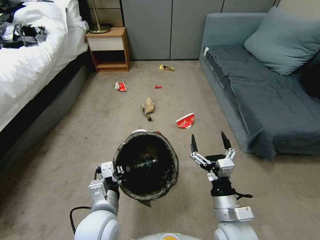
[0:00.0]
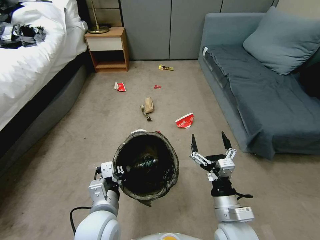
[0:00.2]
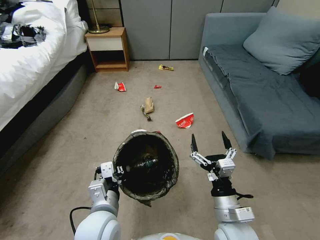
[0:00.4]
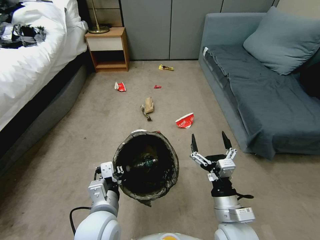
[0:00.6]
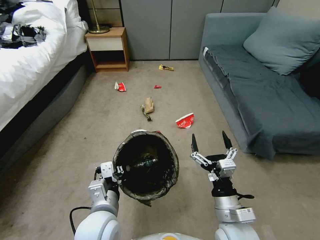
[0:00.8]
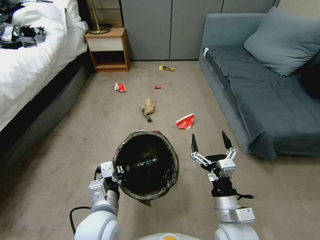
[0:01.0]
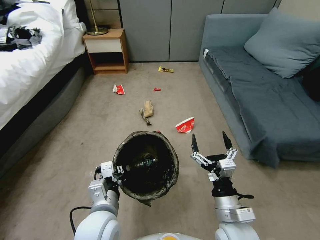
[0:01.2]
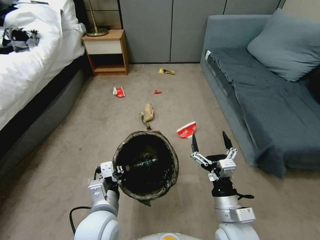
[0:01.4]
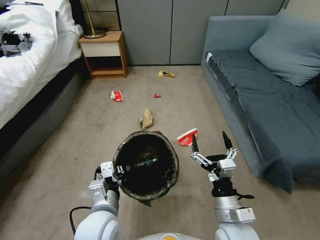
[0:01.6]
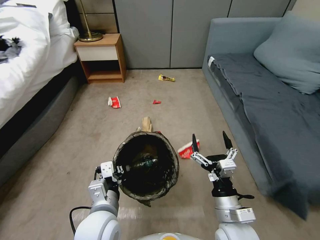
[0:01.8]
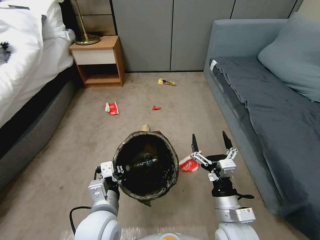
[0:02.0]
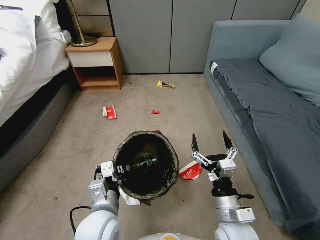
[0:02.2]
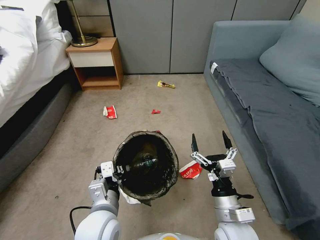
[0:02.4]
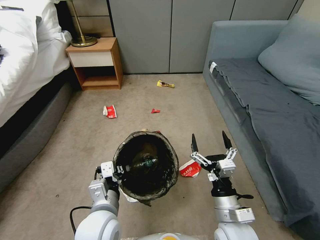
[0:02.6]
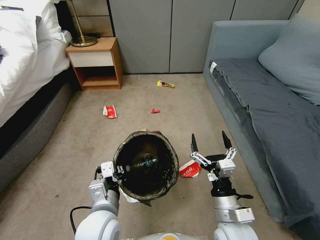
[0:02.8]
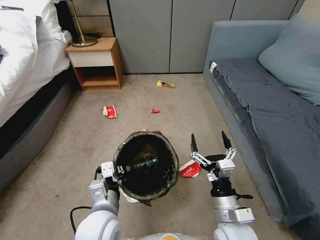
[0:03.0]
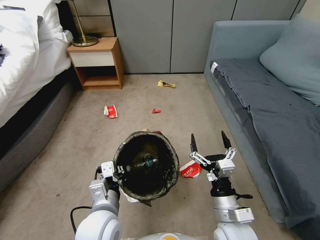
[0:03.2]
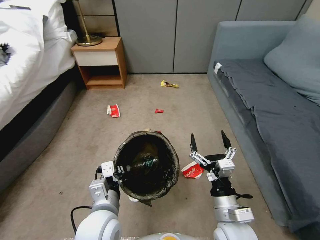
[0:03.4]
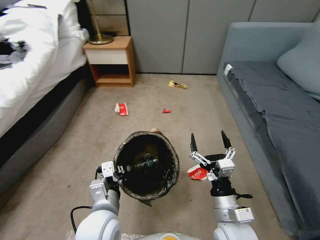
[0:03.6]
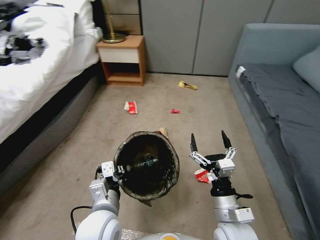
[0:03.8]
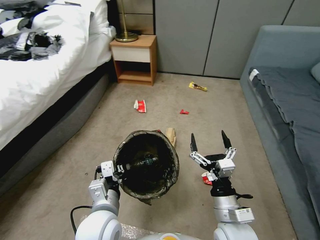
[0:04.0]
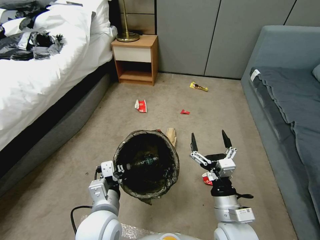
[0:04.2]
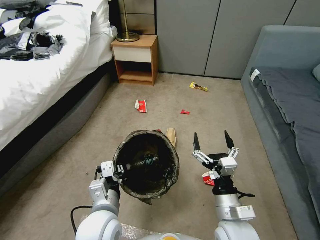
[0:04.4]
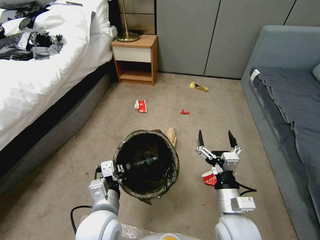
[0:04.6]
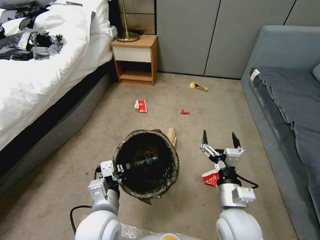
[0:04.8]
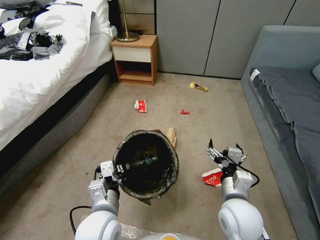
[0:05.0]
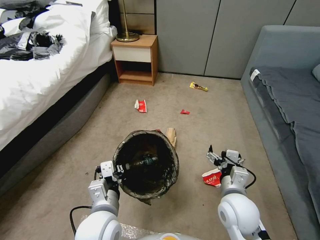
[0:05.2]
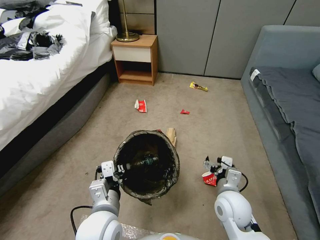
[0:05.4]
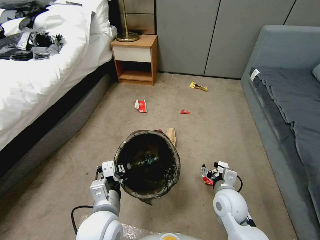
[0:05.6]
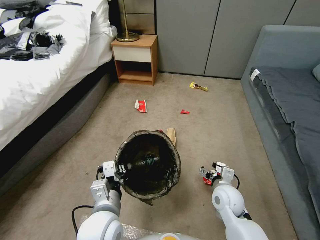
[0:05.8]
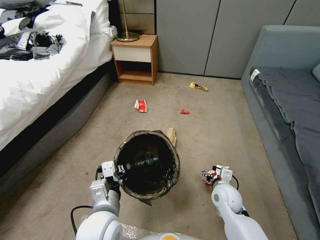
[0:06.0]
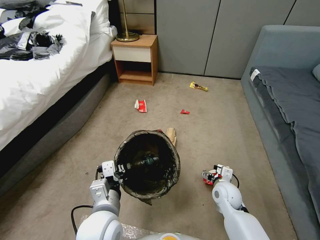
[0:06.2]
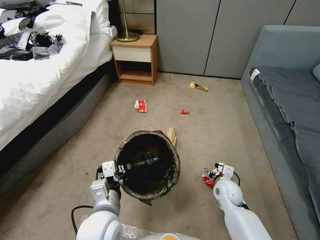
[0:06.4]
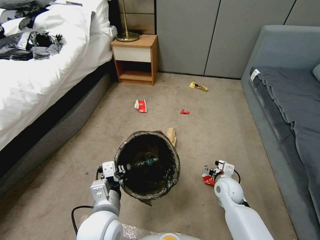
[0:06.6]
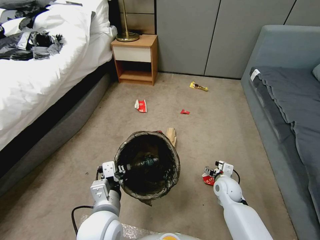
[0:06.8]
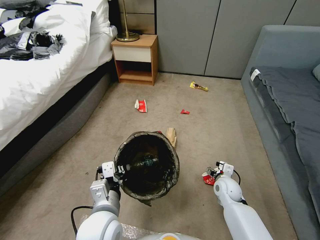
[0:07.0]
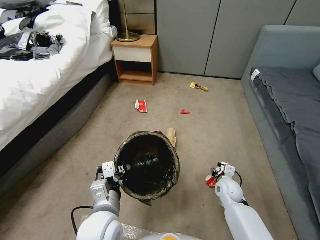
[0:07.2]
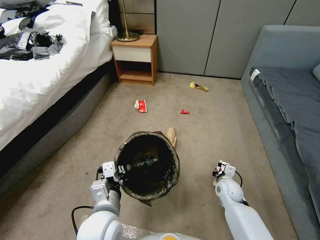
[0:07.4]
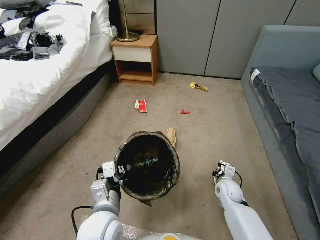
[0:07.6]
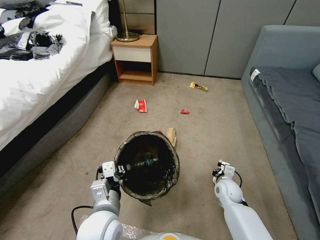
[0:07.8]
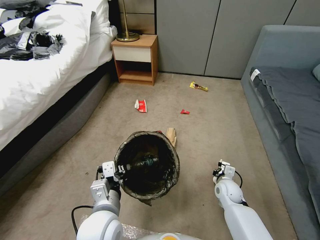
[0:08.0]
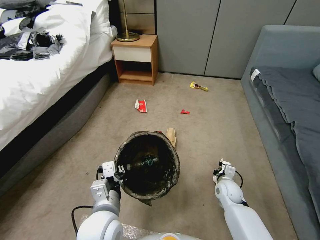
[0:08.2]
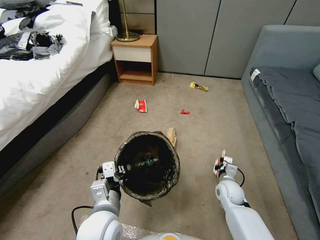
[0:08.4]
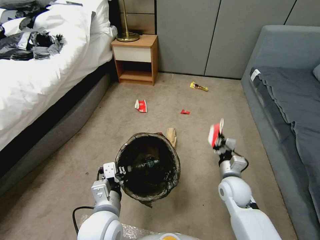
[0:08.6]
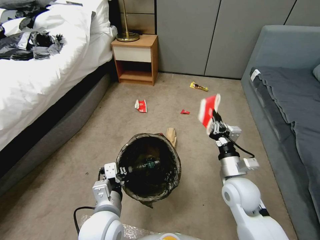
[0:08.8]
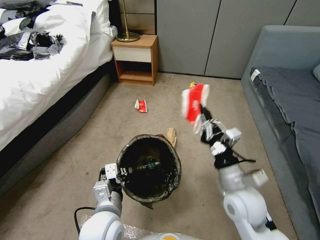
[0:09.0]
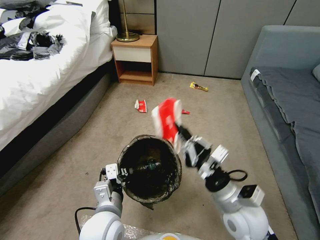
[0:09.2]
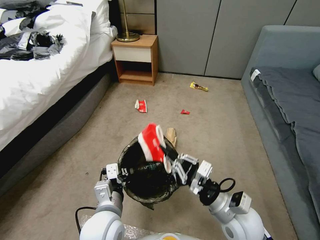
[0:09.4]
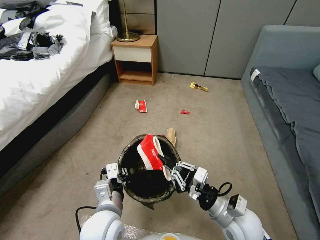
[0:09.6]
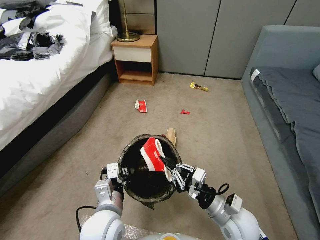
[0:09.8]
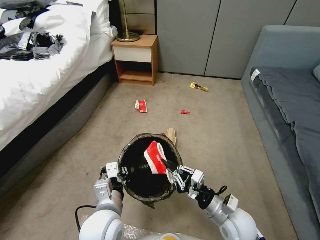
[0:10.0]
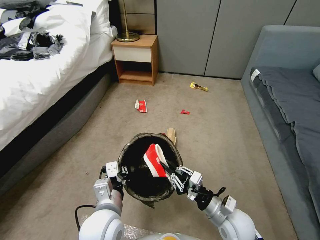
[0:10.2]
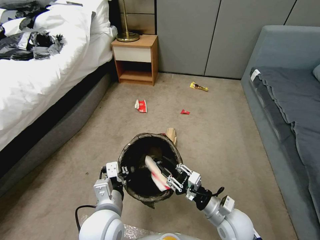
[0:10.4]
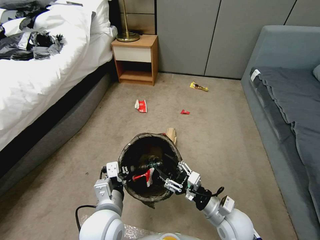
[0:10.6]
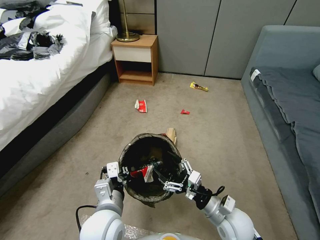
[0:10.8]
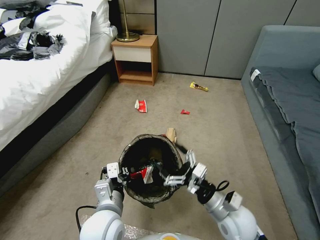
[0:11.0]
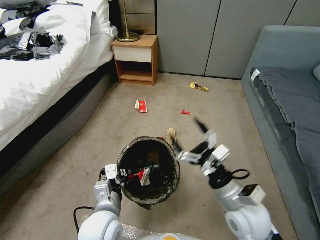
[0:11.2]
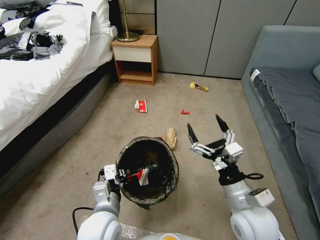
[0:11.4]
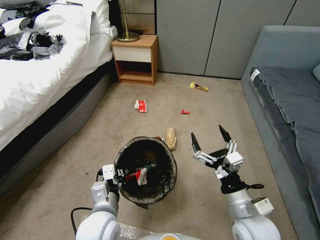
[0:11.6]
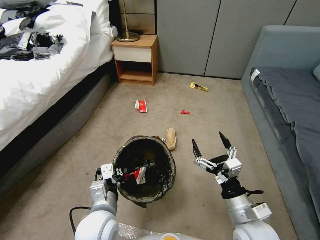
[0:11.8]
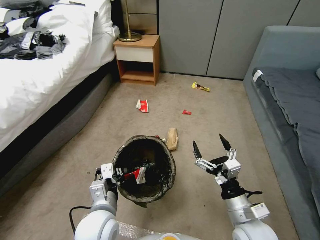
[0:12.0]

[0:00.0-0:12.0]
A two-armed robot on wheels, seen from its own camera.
Task of the whole recording: Pick up the trash bin, then pick up the garbage from the floor and place it into the trash bin.
0:04.4 to 0:06.0: The right gripper shifts approximately 15 cm forward and downward.
0:06.0 to 0:07.6: The right gripper is displaced downward by about 5 cm, and closes up.
0:07.6 to 0:09.0: The right gripper shifts about 25 cm upward and backward.
0:09.0 to 0:10.4: The right gripper goes about 10 cm downward, and opens.
0:10.4 to 0:12.0: The right gripper is displaced upward by roughly 5 cm, and opens.

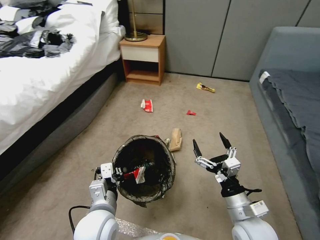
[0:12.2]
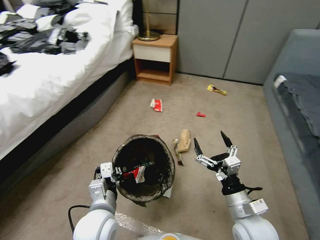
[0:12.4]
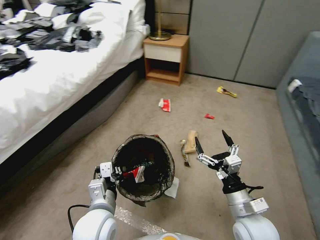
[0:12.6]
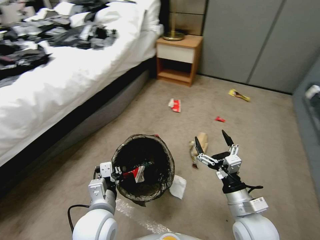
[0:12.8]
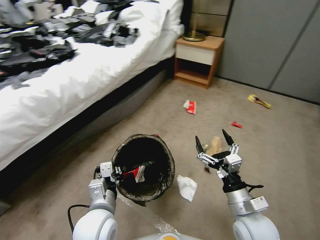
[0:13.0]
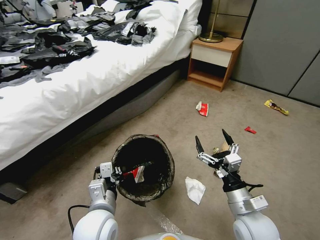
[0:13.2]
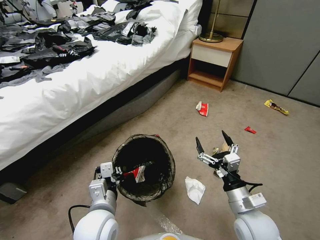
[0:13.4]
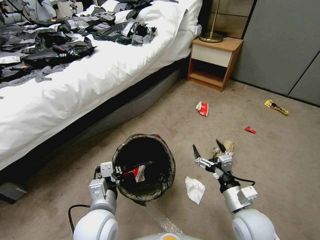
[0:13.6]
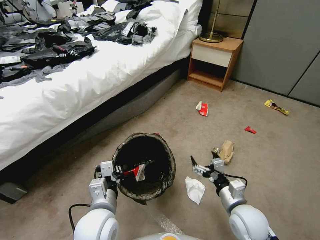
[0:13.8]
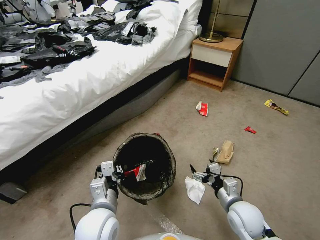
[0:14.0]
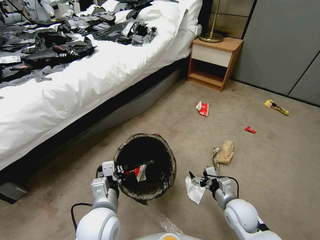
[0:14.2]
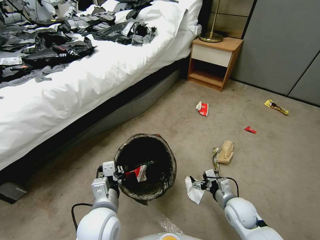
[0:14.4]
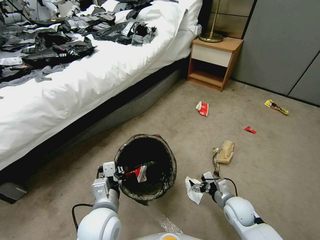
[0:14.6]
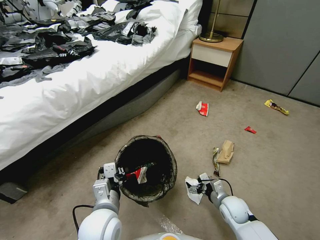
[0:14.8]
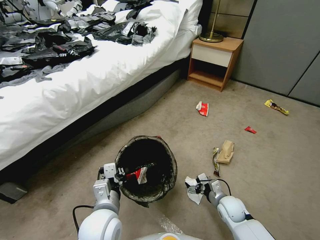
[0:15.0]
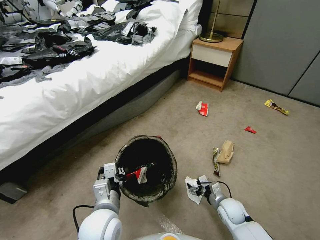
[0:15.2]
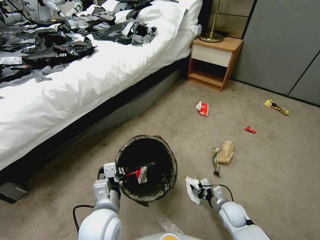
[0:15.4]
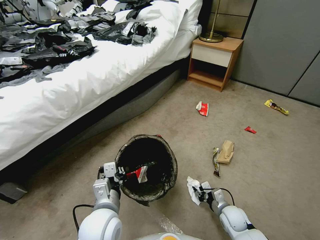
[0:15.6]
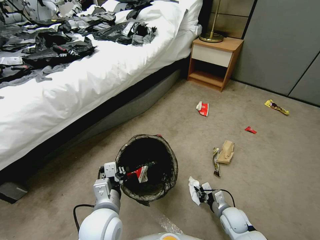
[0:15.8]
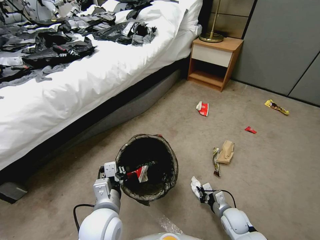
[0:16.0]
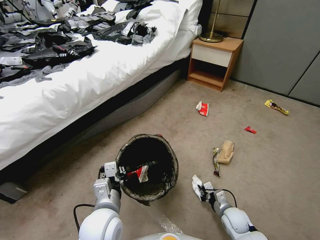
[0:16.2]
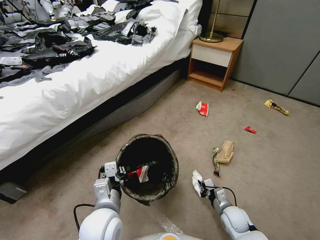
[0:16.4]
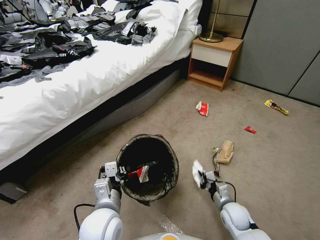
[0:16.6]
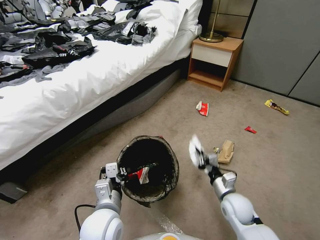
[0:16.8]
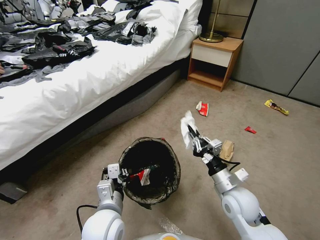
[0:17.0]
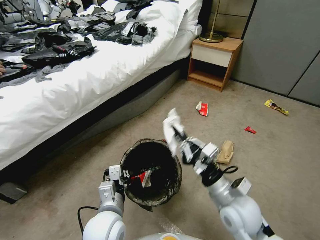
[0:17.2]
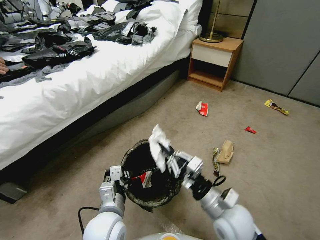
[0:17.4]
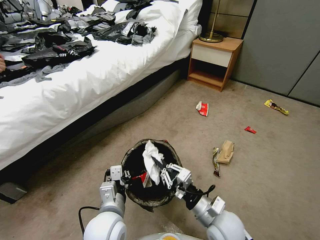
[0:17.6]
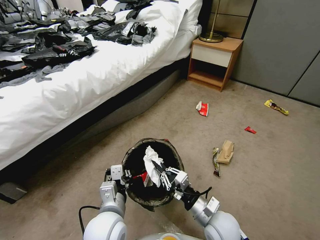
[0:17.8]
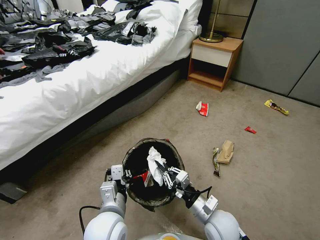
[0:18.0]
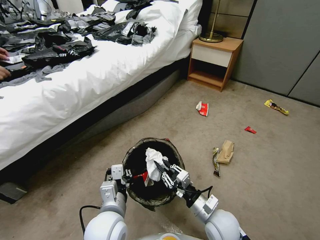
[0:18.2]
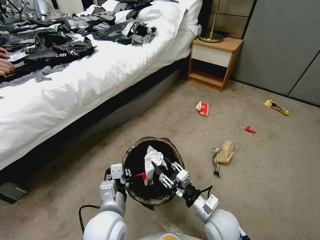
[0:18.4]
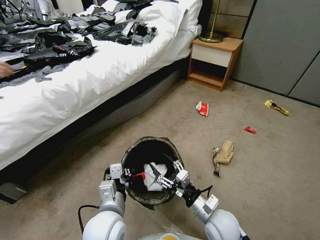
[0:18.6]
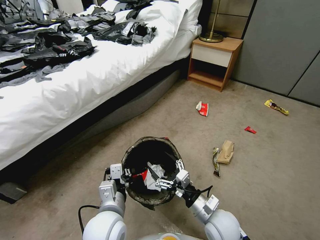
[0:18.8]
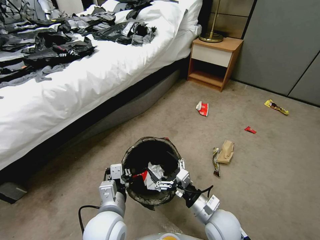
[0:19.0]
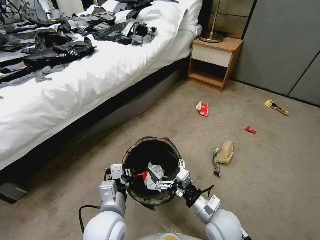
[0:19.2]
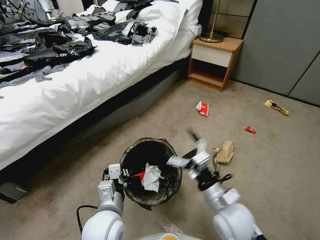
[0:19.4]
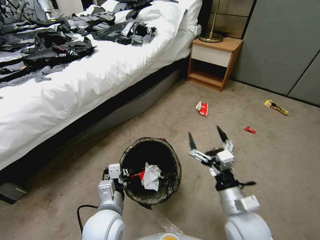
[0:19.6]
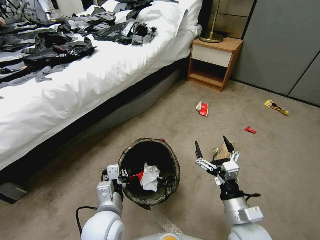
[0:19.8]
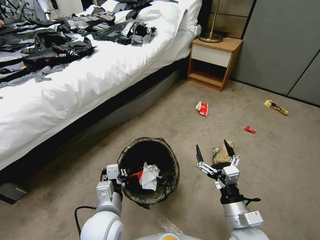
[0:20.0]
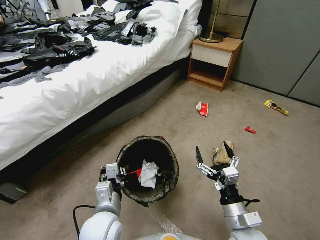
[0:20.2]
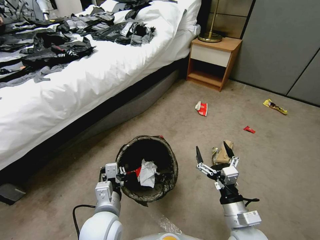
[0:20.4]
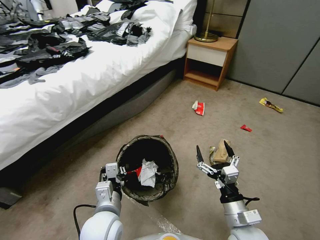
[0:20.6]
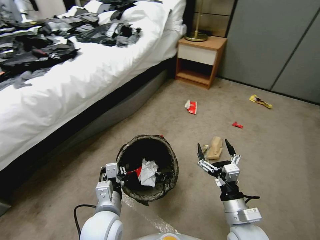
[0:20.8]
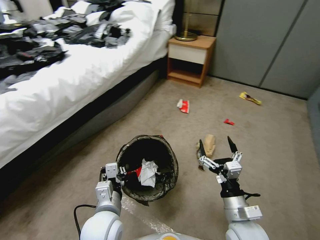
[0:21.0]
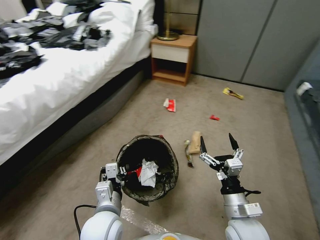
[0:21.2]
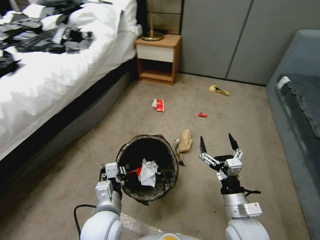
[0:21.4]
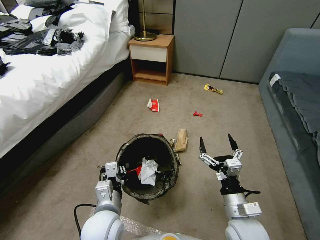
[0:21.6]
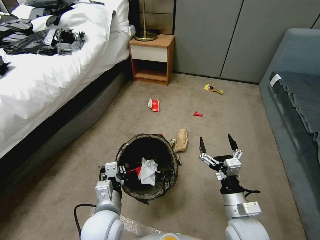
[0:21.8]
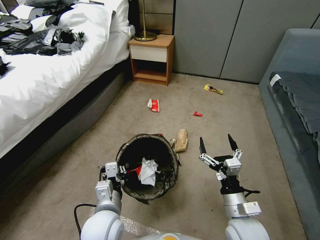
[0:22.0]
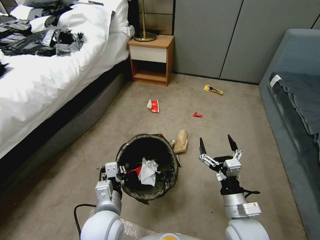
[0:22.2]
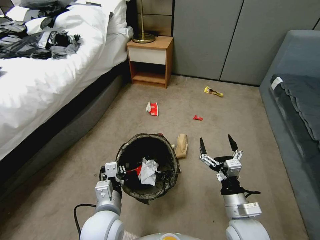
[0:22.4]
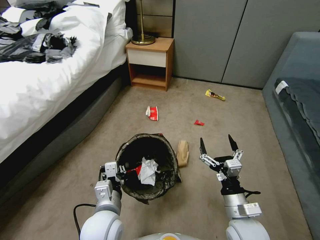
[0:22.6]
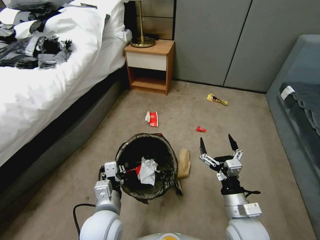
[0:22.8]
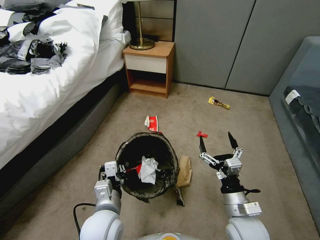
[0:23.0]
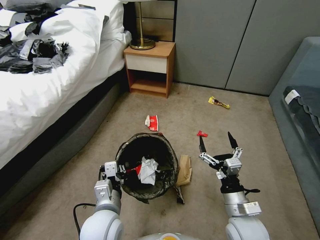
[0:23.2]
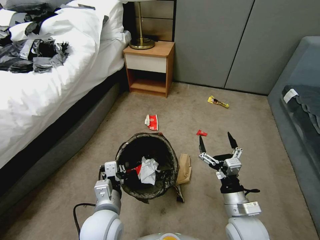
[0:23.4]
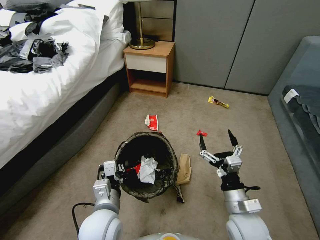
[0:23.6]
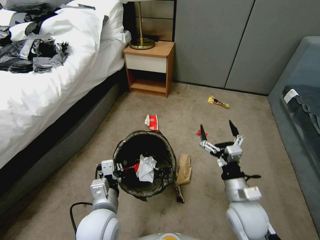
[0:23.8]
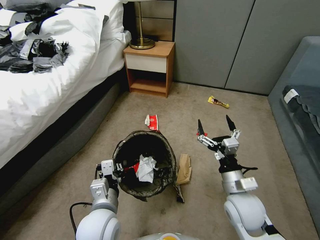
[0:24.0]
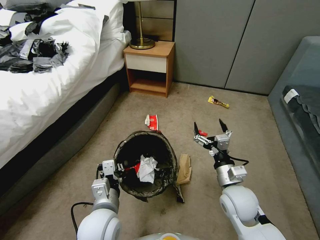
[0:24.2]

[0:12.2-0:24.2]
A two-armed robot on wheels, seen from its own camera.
Task of the whole recording: Pick up the trash bin, then pick up the garbage from the floor and place it into the trash bin.
0:12.2 to 0:13.8: The right gripper shifts by roughly 5 cm.
0:13.8 to 0:15.2: The right gripper goes about 15 cm downward and forward.
0:15.2 to 0:16.6: The right gripper closes.
0:16.6 to 0:18.2: The right gripper goes about 15 cm upward and to the left.
0:18.2 to 0:19.8: The right gripper goes roughly 5 cm upward, and opens up.
0:22.6 to 0:24.2: The right gripper is displaced forward by about 10 cm.
